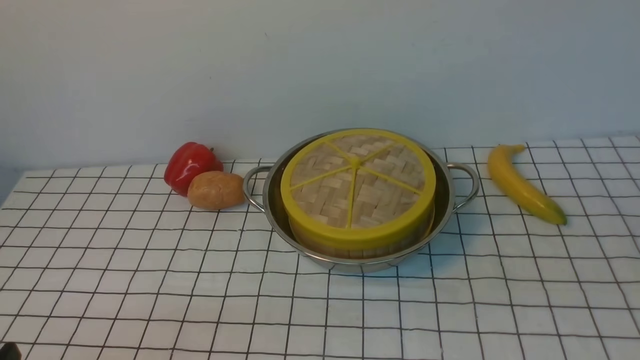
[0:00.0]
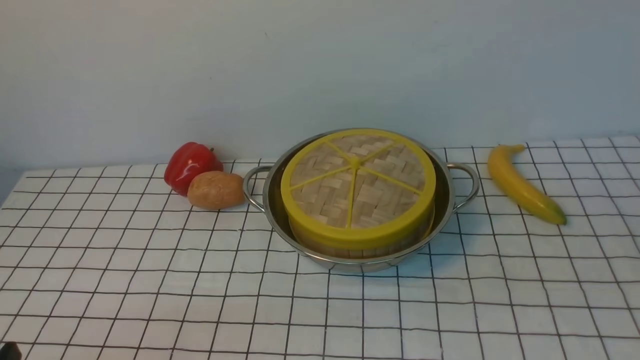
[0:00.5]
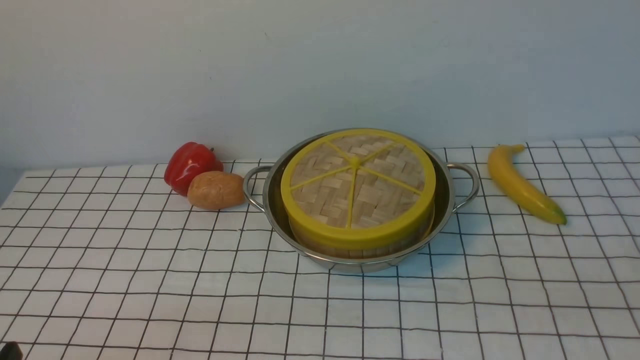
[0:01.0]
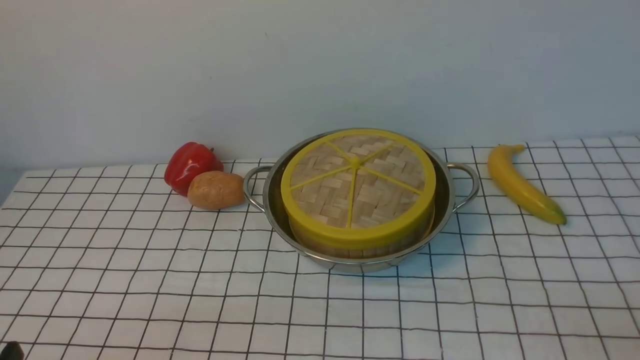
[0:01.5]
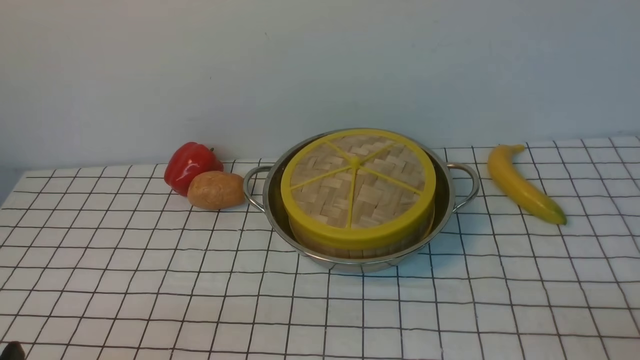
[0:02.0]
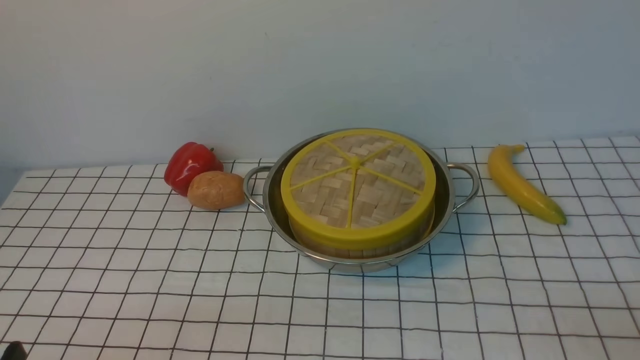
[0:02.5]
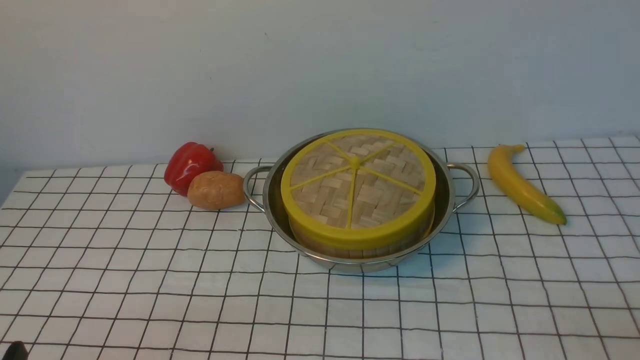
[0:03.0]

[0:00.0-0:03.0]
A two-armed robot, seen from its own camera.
Task of the whole recording: place the steamer in the pot on the white tablecloth, and put the lid on the steamer.
0:01.5 to 0:03.0: Both grippers stay put.

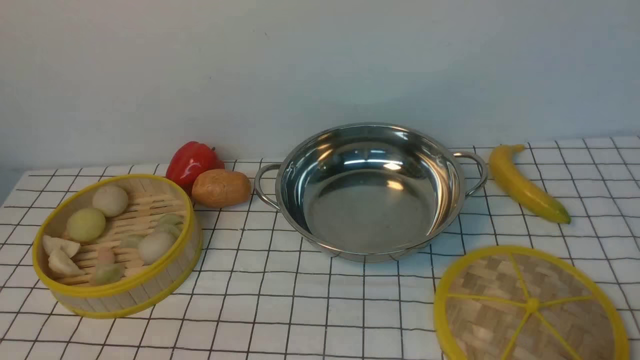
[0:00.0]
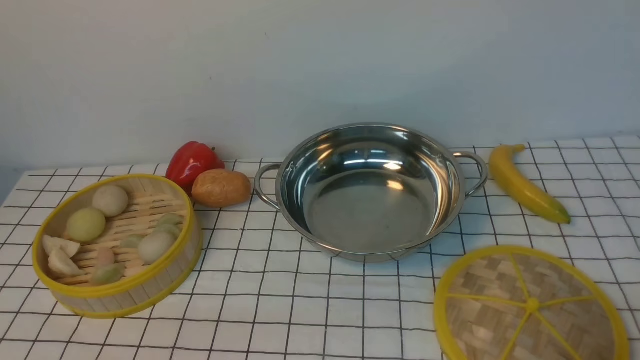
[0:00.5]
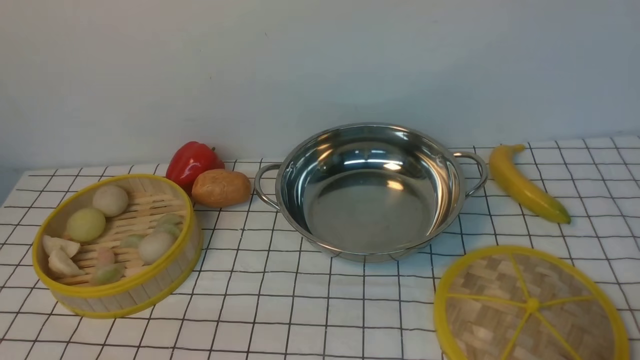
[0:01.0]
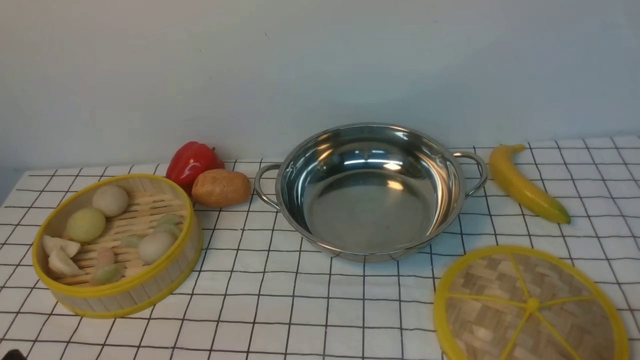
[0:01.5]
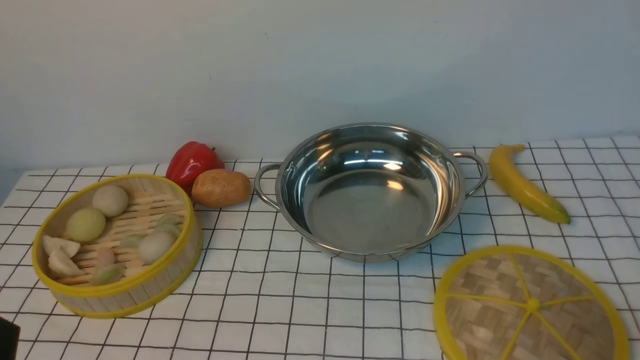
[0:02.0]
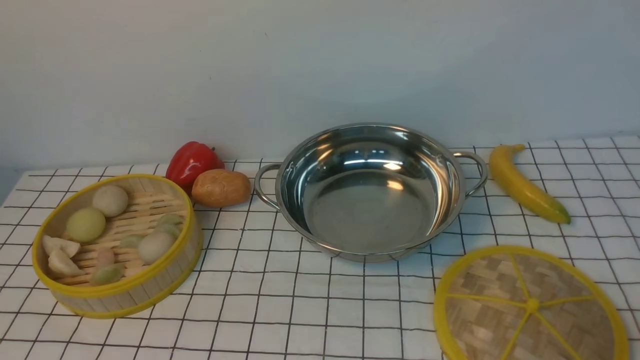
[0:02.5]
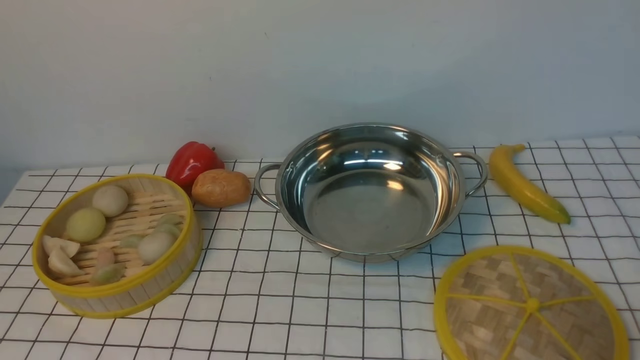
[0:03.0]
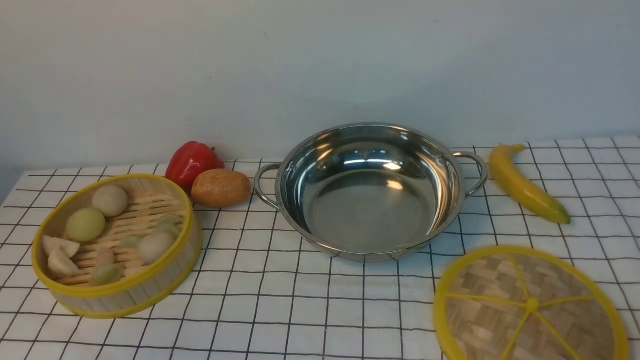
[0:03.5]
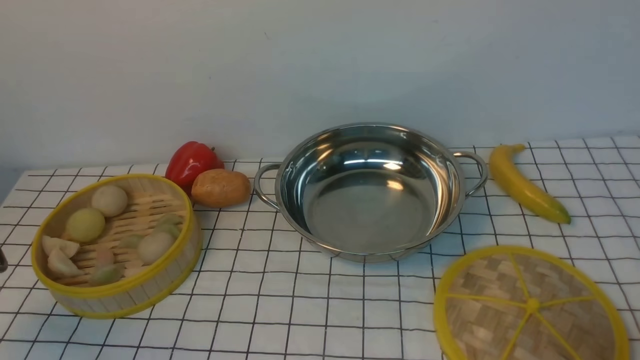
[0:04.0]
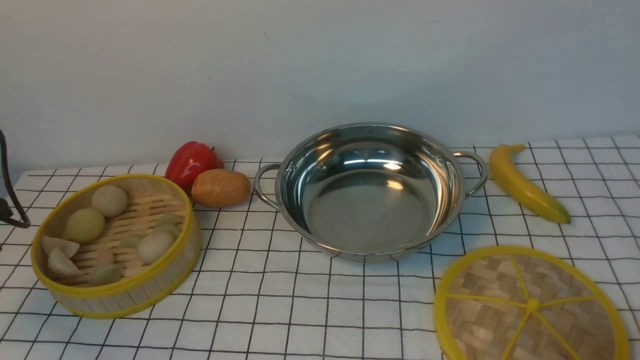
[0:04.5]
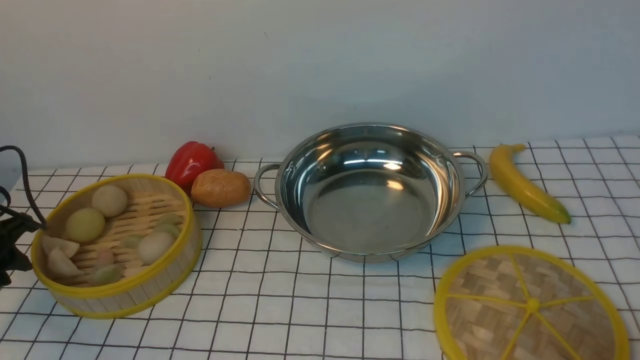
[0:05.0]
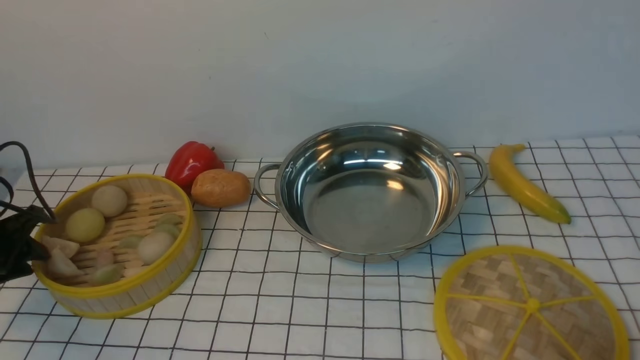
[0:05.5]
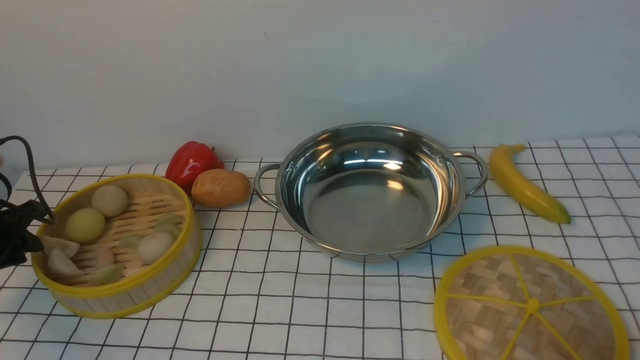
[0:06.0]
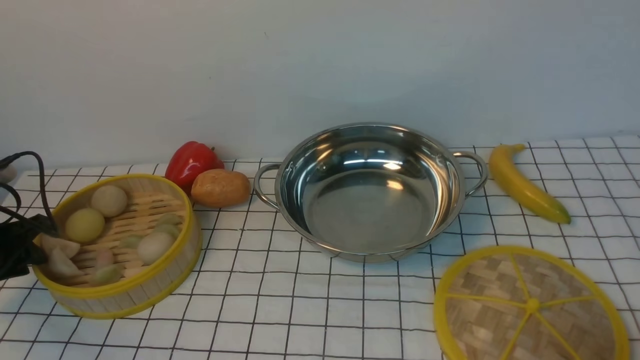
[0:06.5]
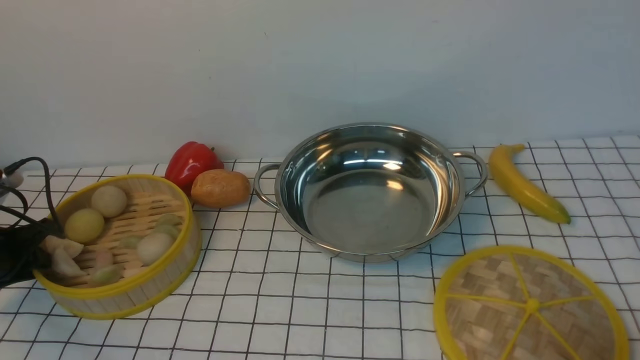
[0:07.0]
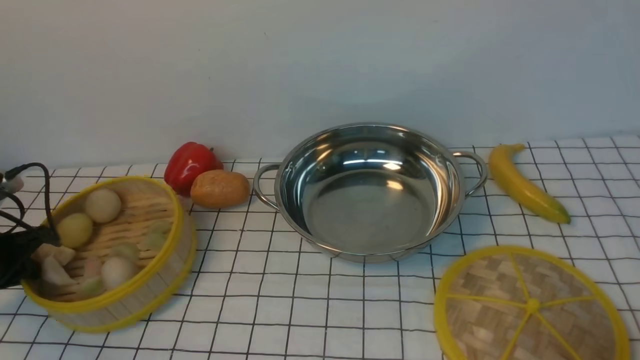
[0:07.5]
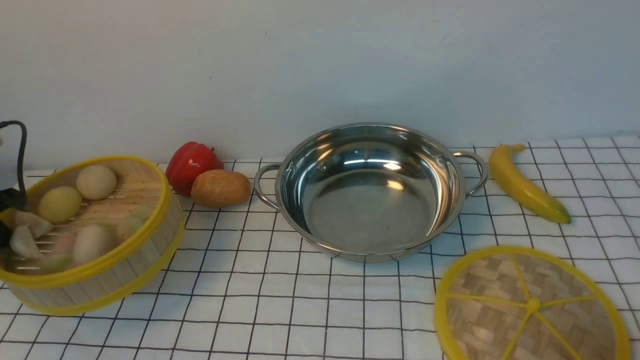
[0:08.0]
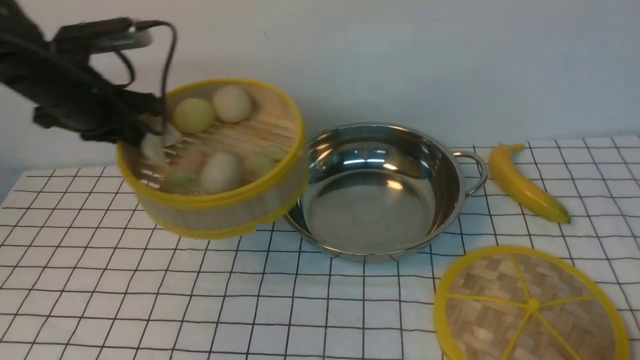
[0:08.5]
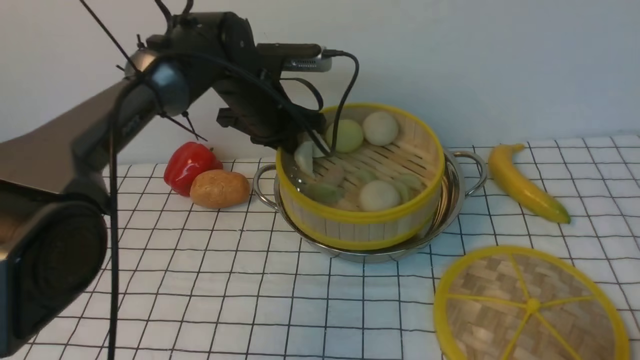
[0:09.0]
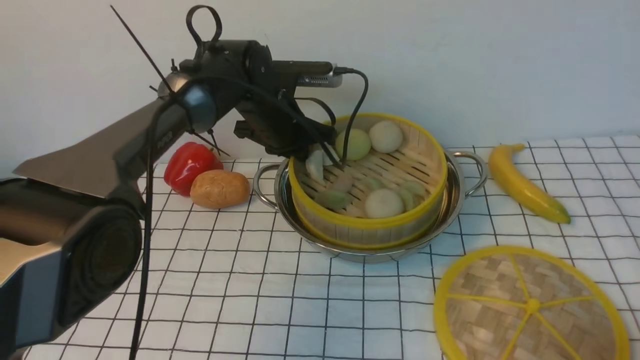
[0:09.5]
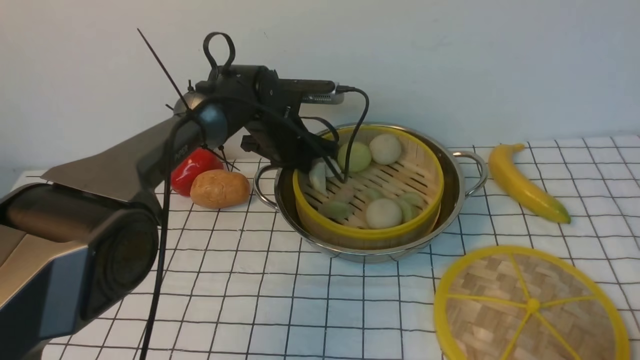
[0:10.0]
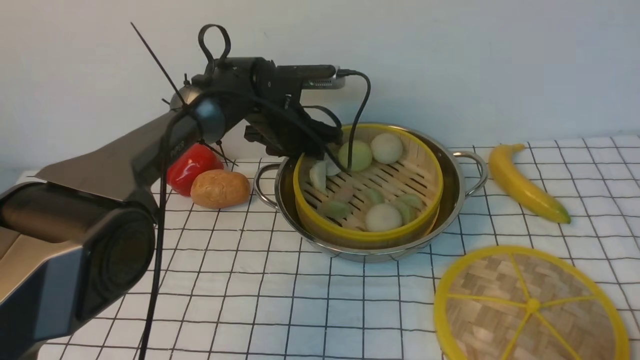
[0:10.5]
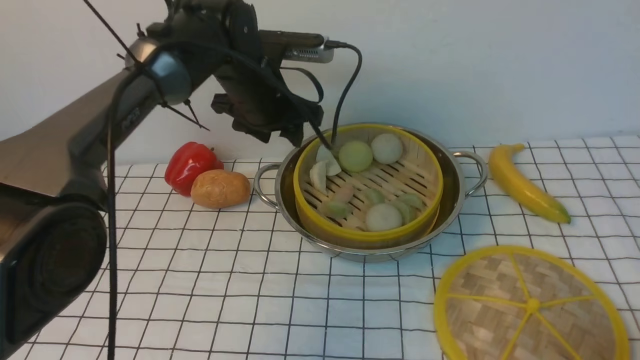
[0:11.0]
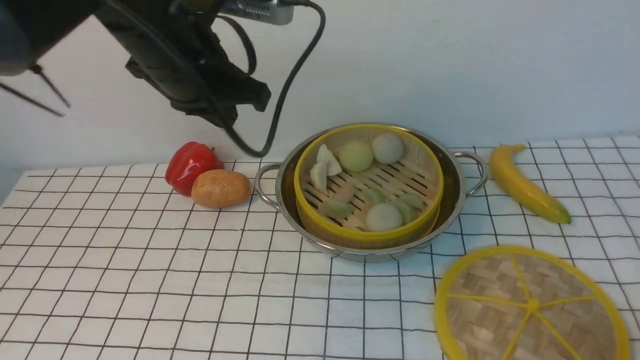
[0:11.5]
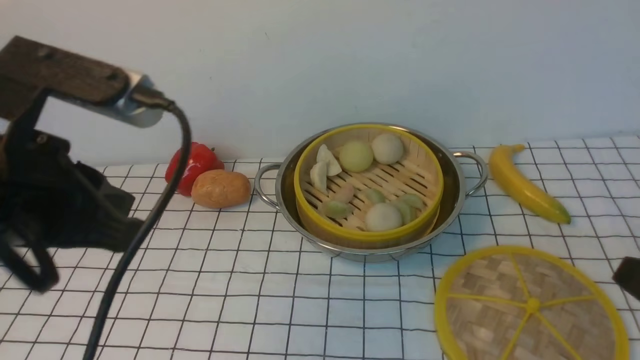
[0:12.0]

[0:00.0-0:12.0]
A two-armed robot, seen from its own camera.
Task of the whole recording: place the steamer in the pot on the white tablecloth, and put the lid on the steamer.
Step, 0:00.0 to 0:07.5: use the left arm to lift the steamer closest to it.
Step, 0:08.0 to 0:10.5: use the left arm to put the steamer into the iron steamer pot in the middle.
0:02.0 to 0:04.0: The left gripper shifts approximately 20 cm forward and to the left.
0:04.0 to 0:06.0: The left gripper heads downward and forward, covering about 15 cm.
0:06.0 to 0:08.0: The left gripper heads upward, covering about 5 cm, and closes.
0:08.0 to 0:10.0: The left gripper is displaced to the right and forward by roughly 40 cm.
0:10.0 to 0:12.0: The right gripper goes roughly 10 cm upward and forward. Meanwhile the left gripper is displaced backward and upward by roughly 35 cm, and opens and closes again.

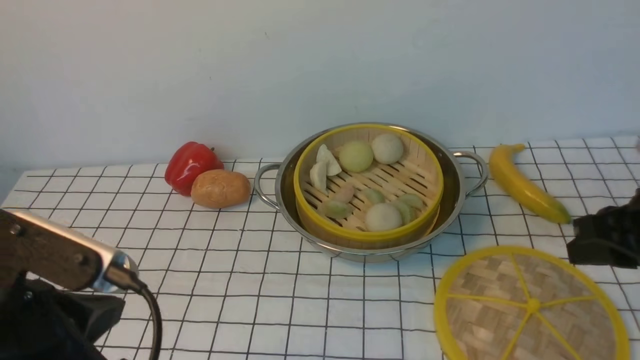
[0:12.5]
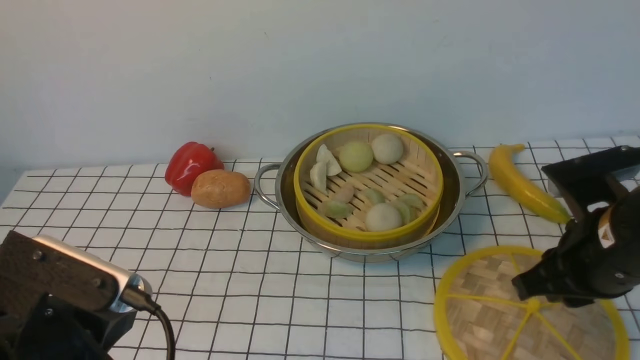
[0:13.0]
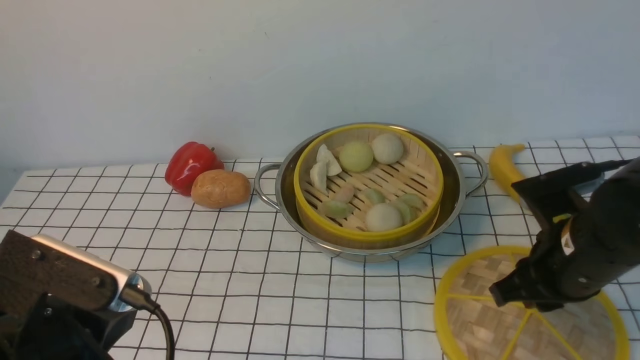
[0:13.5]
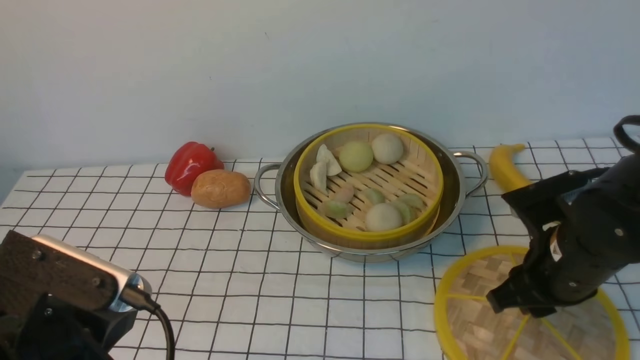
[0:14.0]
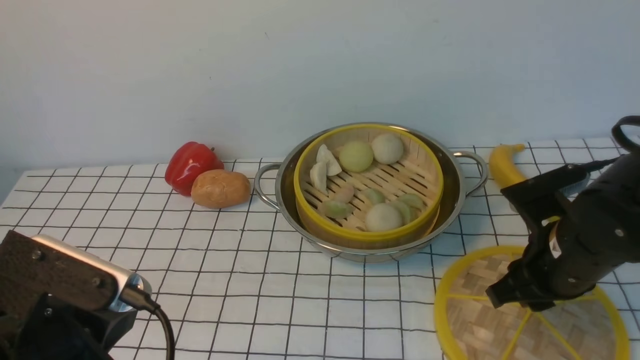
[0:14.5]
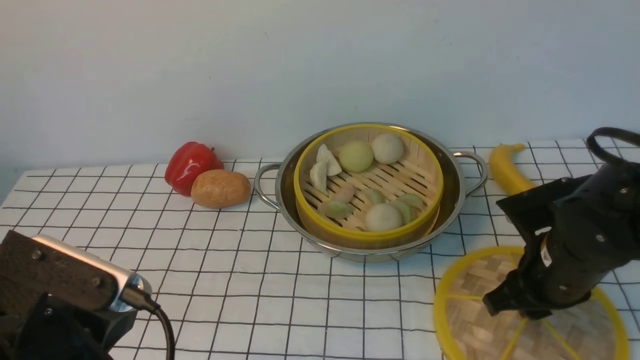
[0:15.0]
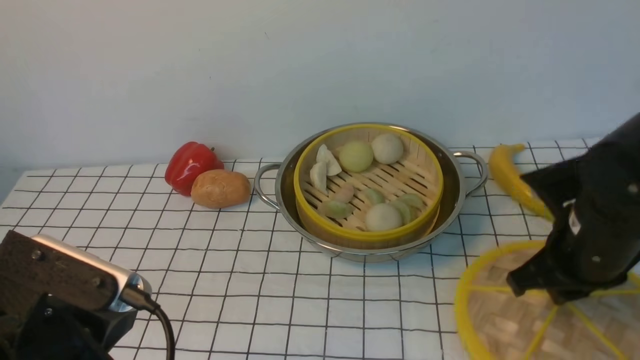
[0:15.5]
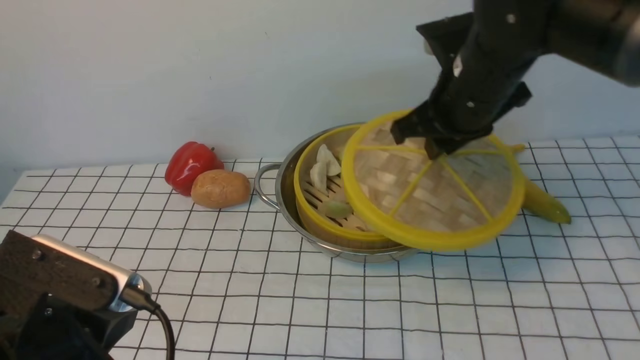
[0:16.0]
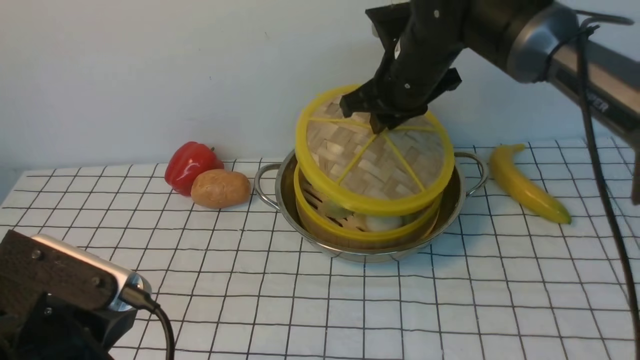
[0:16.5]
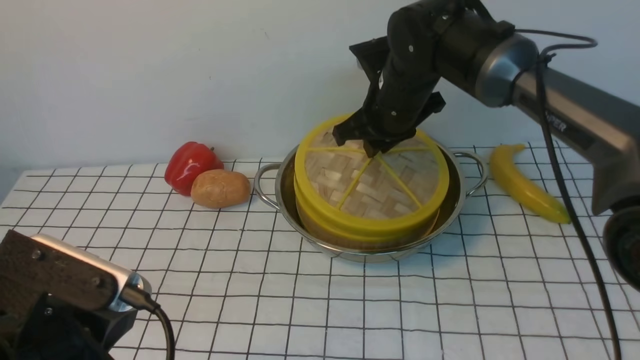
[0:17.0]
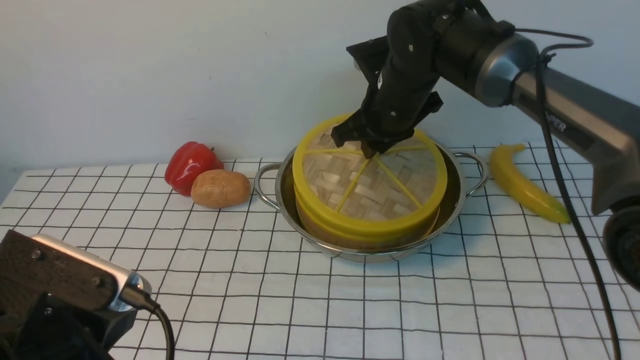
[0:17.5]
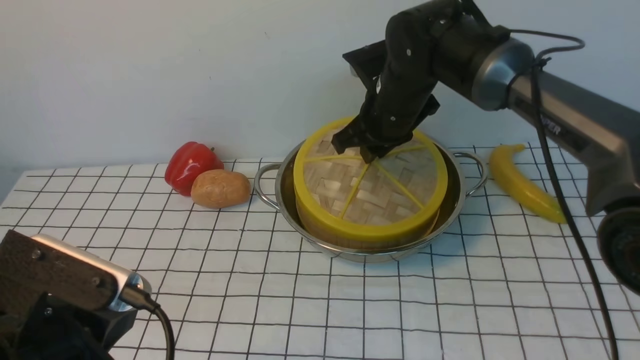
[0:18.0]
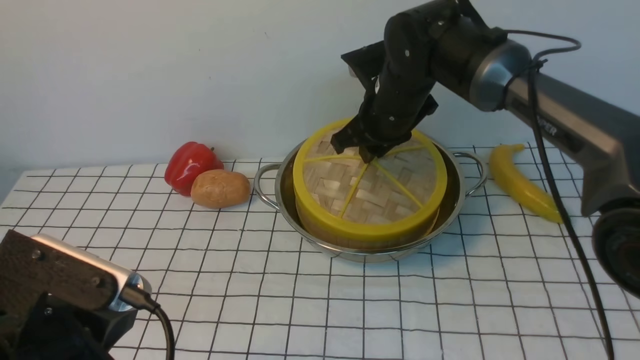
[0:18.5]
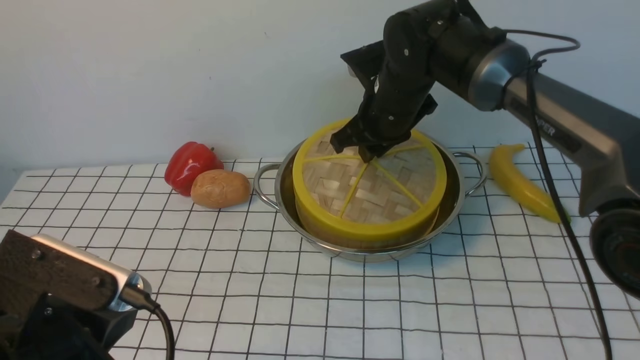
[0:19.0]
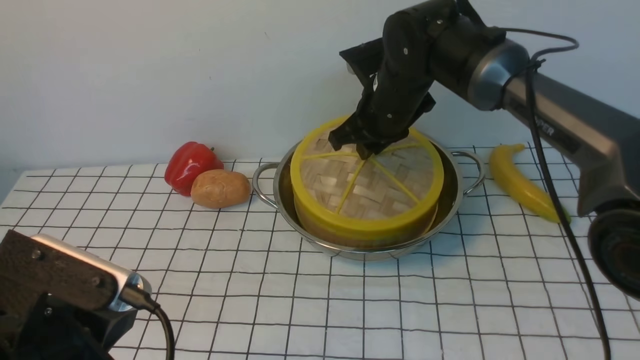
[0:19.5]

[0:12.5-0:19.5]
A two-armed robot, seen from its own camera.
Task of the whole recording: place the steamer in the pot on the white tablecloth, and put the lid on the steamer.
Step, 0:12.5 to 0:15.0: use the right arm to lift the lid of the steamer.
0:12.5 to 0:14.5: The right gripper travels downward and to the left by about 10 cm.
0:14.5 to 0:16.0: The right gripper goes roughly 20 cm upward, forward and to the left, and closes up.
0:16.0 to 0:17.5: The right gripper is displaced forward, downward and to the left by approximately 10 cm.
0:17.5 to 0:19.5: Both grippers stay put.
